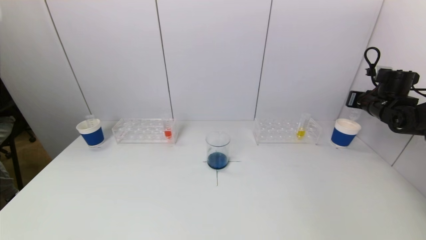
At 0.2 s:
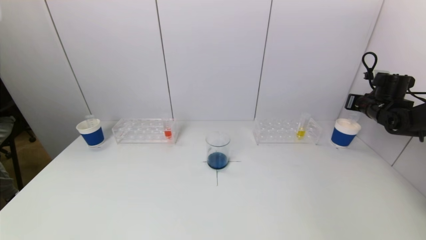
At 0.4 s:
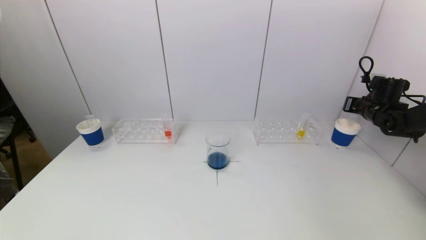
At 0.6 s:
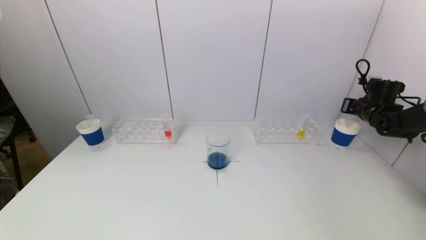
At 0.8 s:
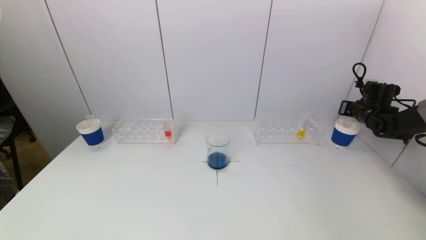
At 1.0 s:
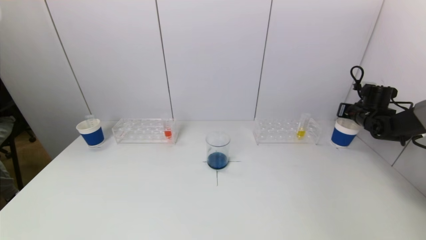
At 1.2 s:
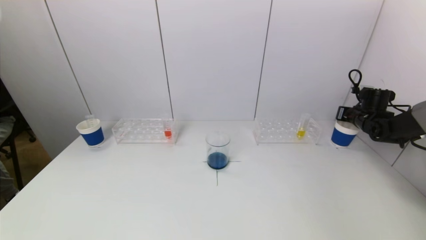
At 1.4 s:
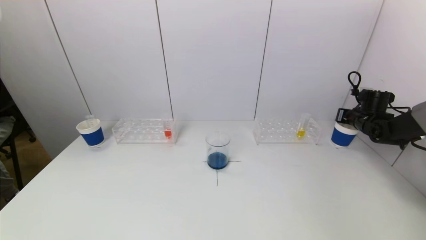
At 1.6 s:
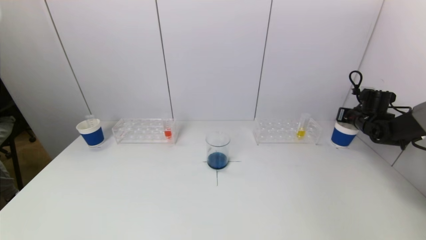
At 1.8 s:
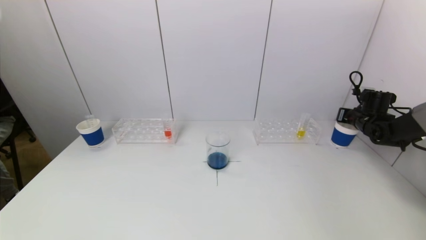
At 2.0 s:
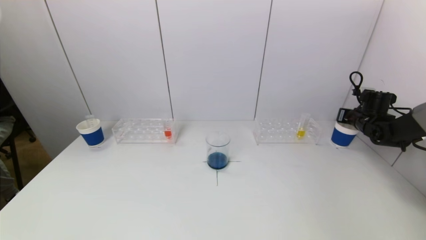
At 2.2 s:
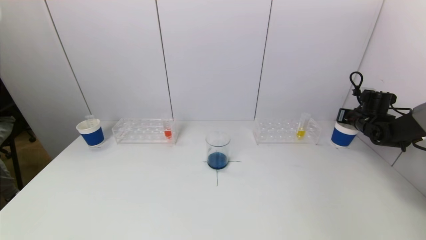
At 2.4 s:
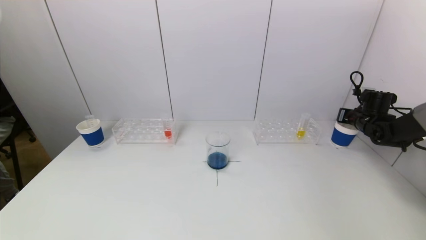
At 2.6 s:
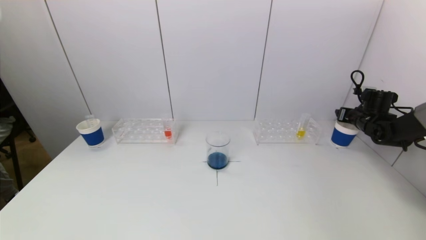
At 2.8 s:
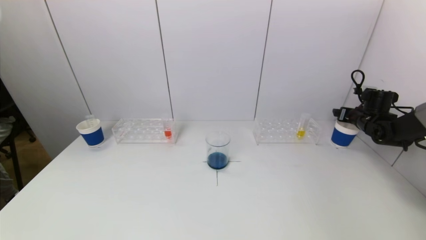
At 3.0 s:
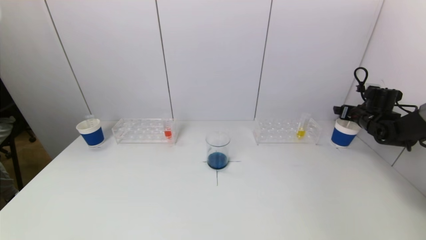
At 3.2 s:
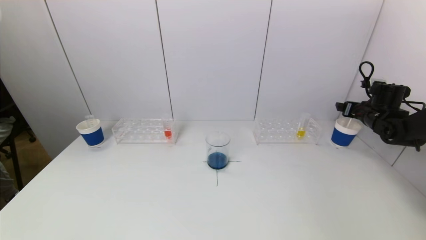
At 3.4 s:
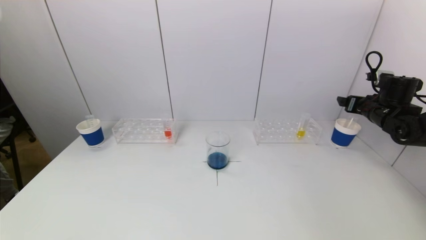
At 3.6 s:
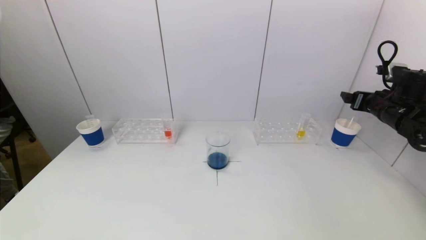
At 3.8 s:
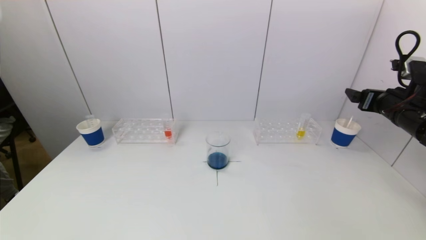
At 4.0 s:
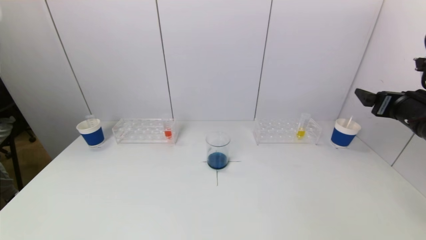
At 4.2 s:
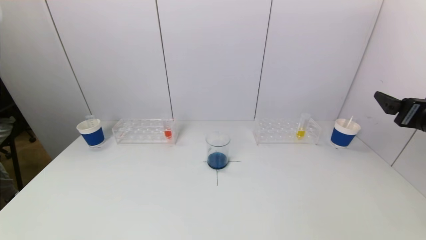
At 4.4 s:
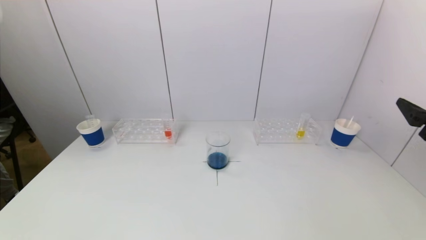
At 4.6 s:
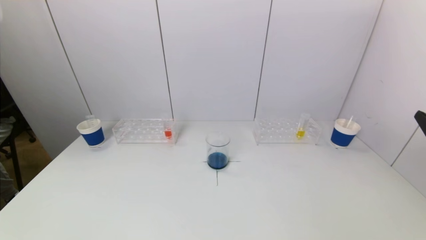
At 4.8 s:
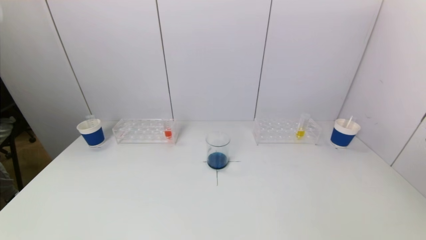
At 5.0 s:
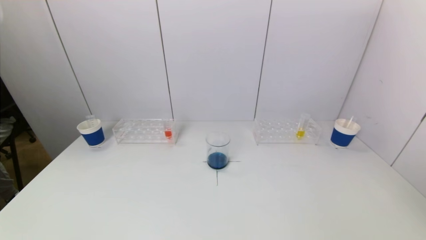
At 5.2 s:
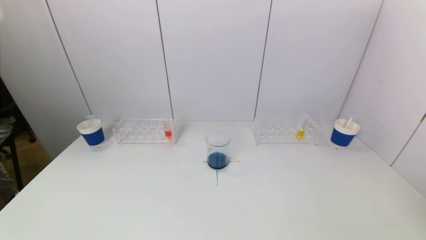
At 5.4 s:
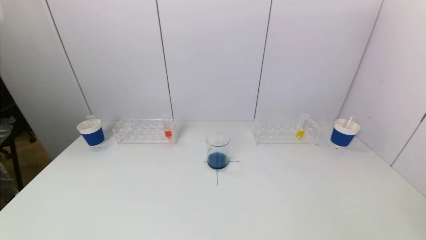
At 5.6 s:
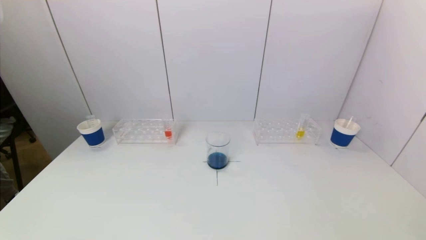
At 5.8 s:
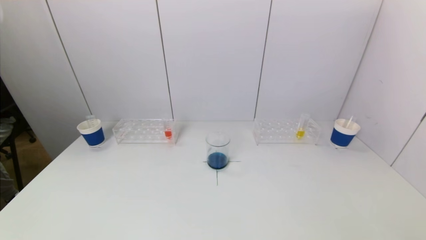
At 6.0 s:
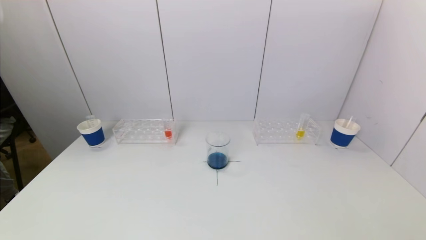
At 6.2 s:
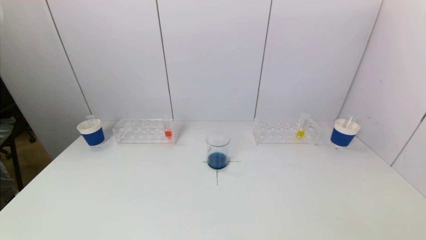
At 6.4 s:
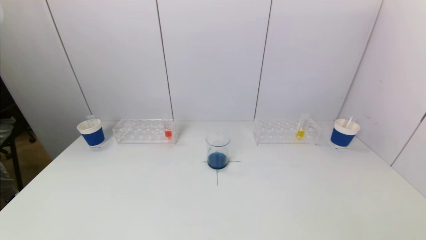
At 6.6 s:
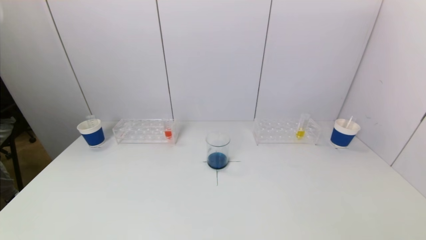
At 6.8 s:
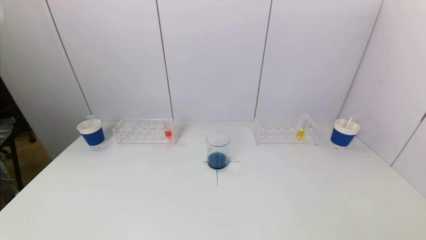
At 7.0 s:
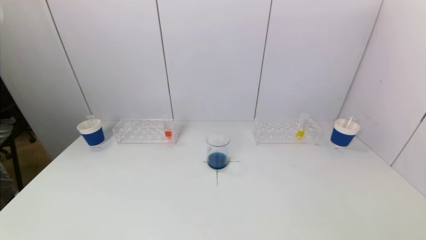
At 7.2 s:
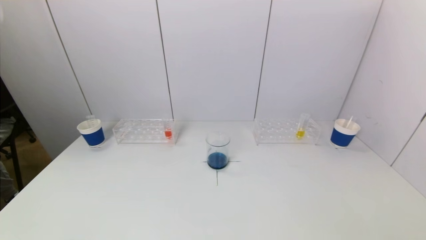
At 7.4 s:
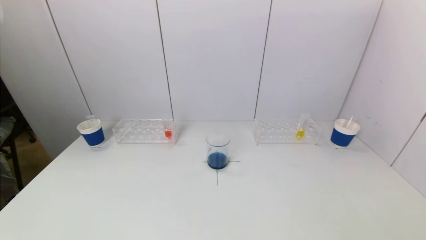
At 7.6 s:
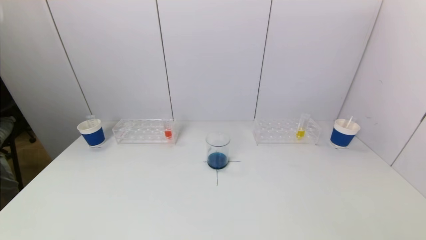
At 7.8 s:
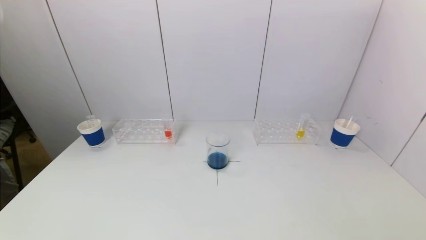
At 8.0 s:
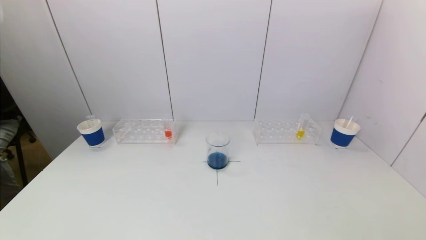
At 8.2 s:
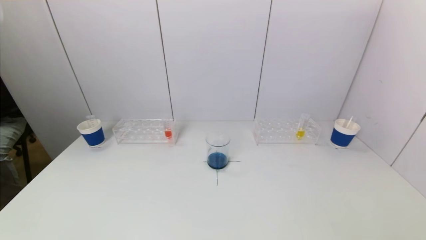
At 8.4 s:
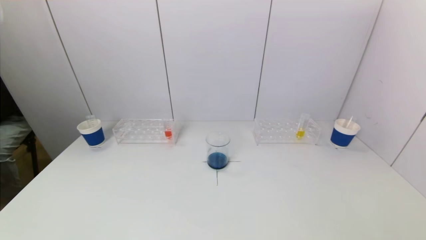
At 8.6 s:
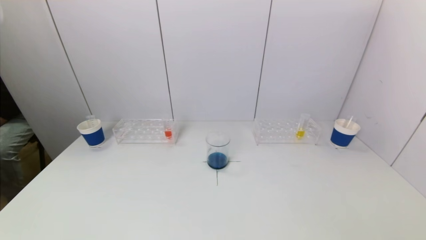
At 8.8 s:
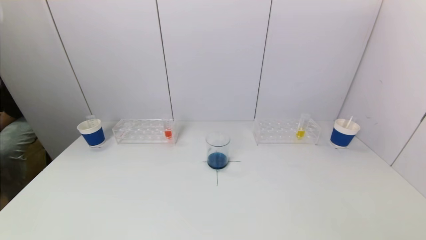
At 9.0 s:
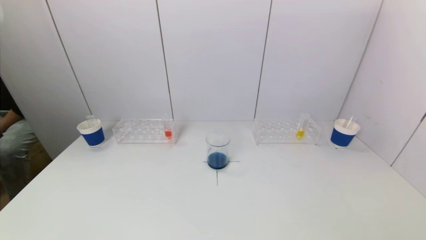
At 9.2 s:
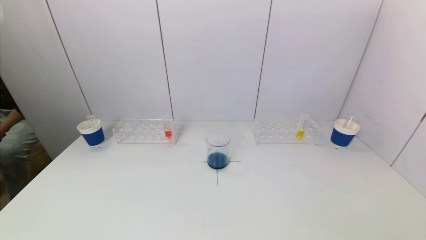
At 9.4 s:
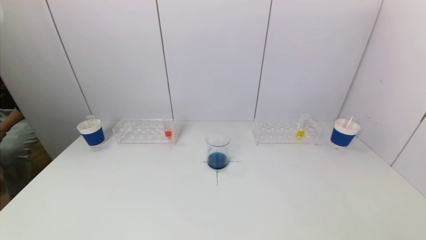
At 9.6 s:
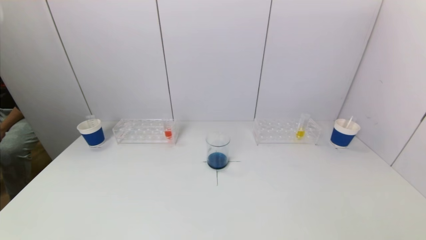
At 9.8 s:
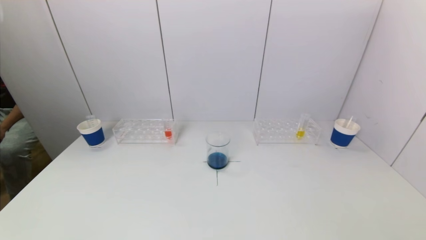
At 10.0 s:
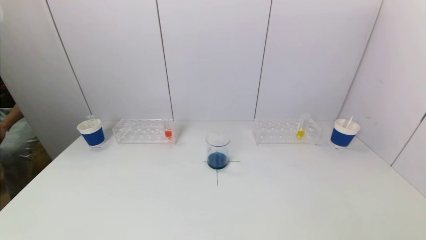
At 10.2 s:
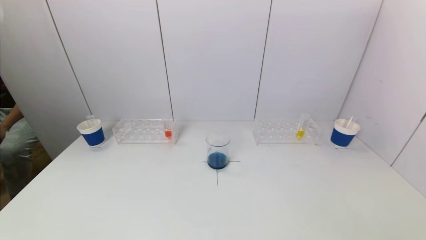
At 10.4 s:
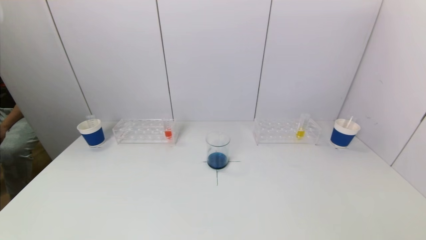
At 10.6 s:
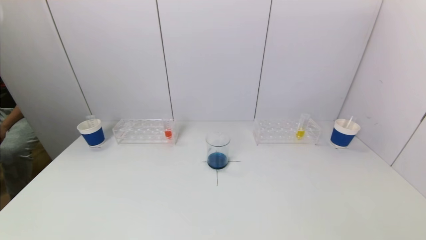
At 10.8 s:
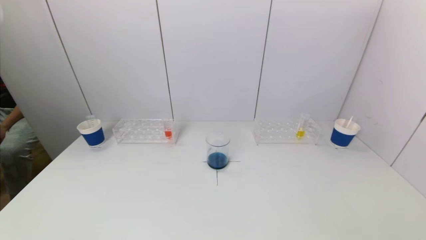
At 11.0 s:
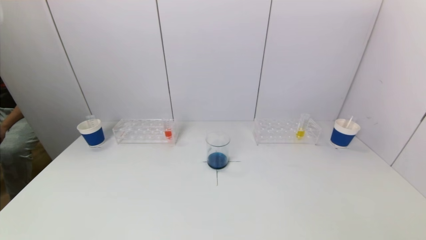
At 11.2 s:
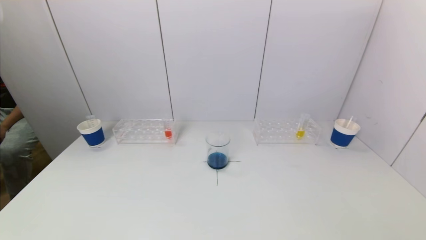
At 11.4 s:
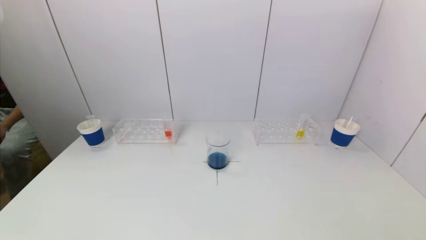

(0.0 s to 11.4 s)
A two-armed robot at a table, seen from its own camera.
Task of the whole recording: pick up a test tube with pigment on left test tube rack and a test tube with pigment on right test tube rack by grippers and pour them into the beaker.
Step, 0.0 s - 3.0 s: Place the test tube into the paper cup with the right gripper.
0.0 s - 1.4 s: The right gripper travels downward by roughly 5 cm.
1.4 s - 2.8 s: The right gripper opens up.
2.8 s - 4.2 s: The right gripper moves backward and upward, approximately 30 cm.
4.2 s - 5.6 s: The right gripper goes approximately 25 cm backward and downward.
7.2 s - 11.4 s: Both grippers stay put.
